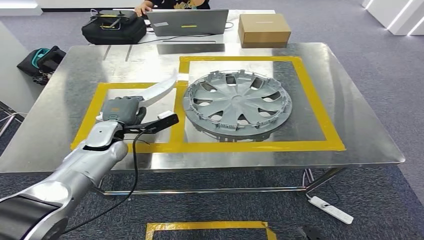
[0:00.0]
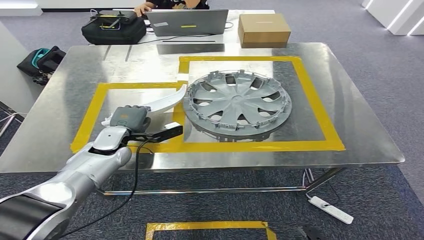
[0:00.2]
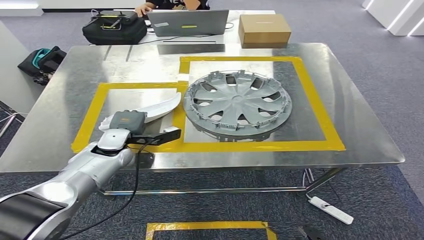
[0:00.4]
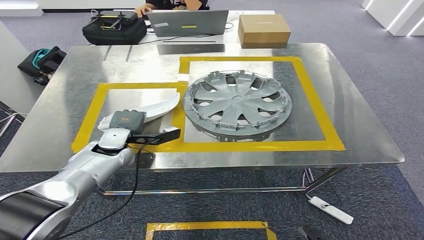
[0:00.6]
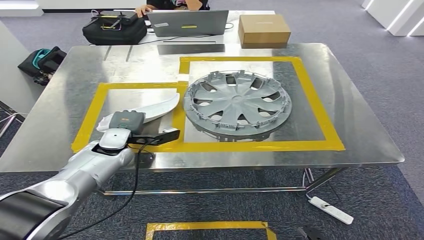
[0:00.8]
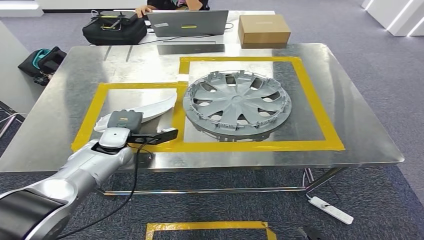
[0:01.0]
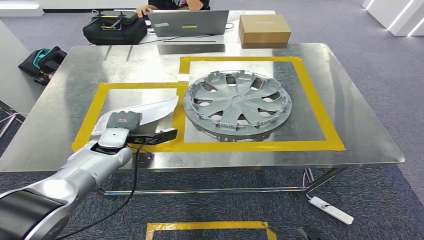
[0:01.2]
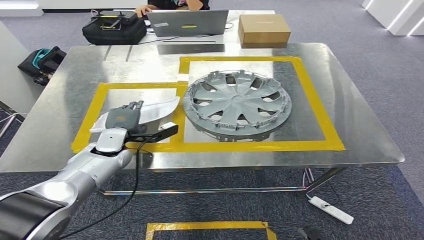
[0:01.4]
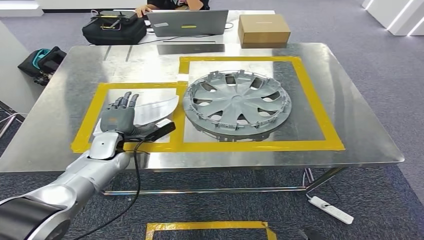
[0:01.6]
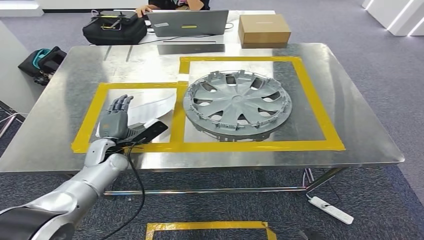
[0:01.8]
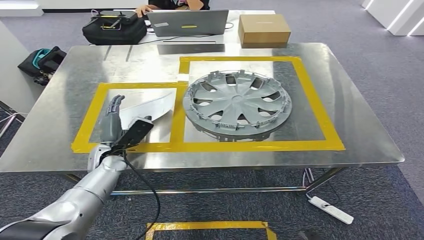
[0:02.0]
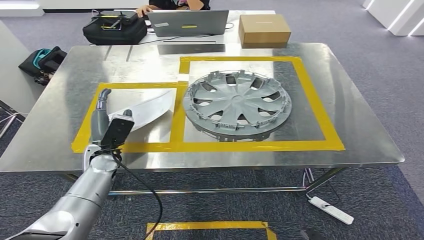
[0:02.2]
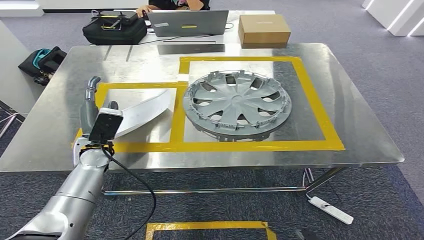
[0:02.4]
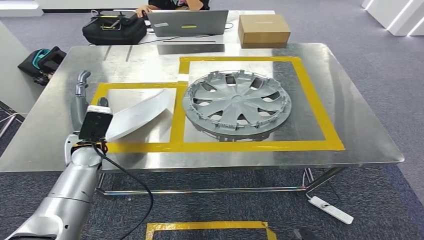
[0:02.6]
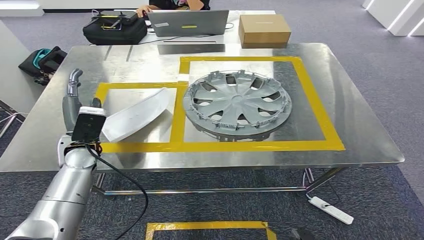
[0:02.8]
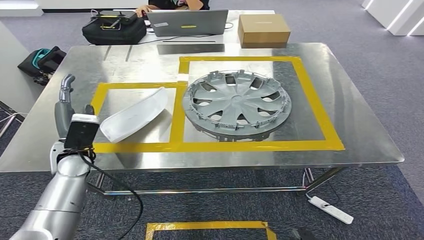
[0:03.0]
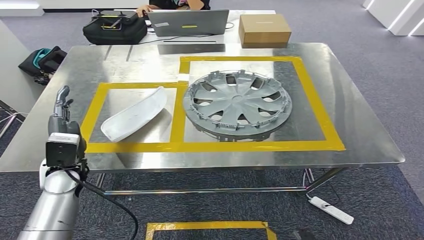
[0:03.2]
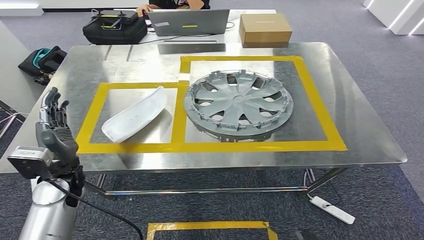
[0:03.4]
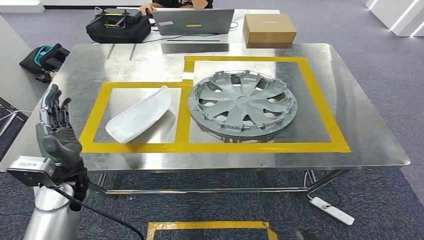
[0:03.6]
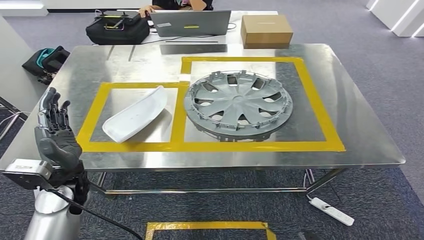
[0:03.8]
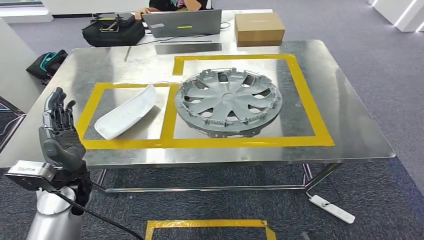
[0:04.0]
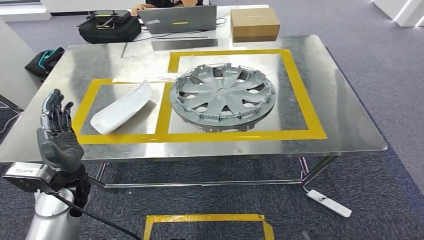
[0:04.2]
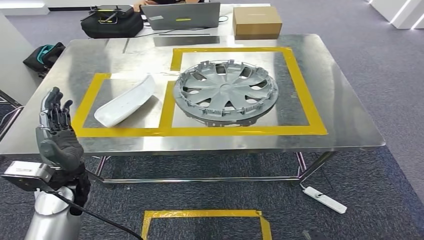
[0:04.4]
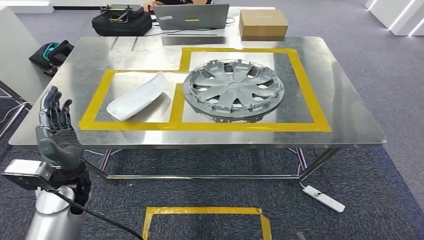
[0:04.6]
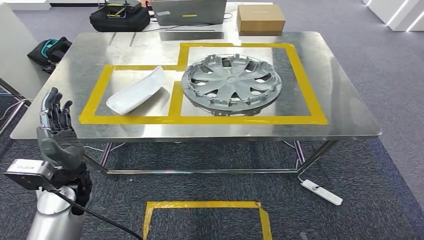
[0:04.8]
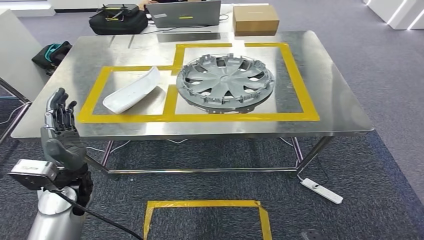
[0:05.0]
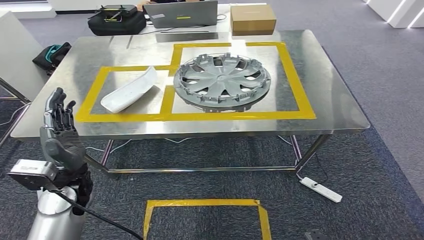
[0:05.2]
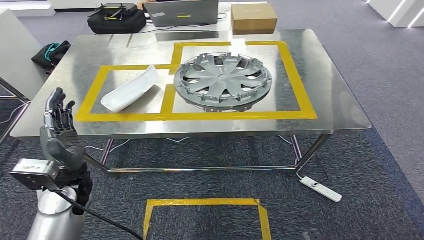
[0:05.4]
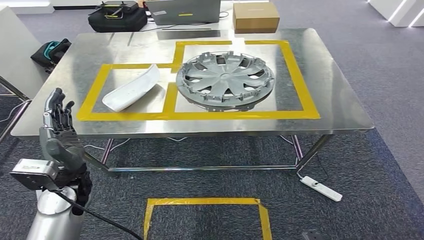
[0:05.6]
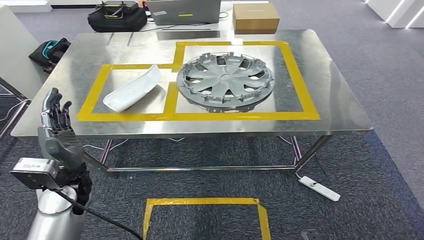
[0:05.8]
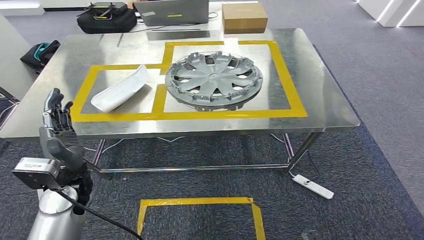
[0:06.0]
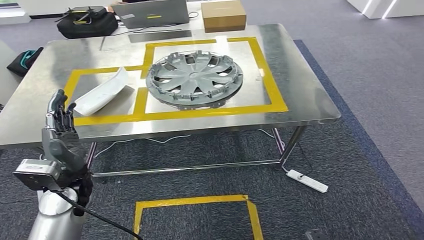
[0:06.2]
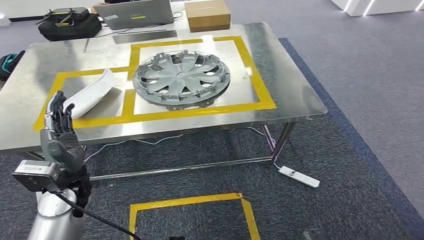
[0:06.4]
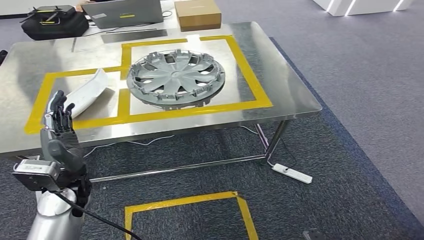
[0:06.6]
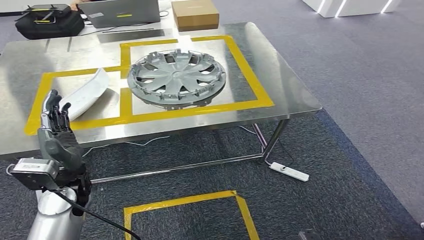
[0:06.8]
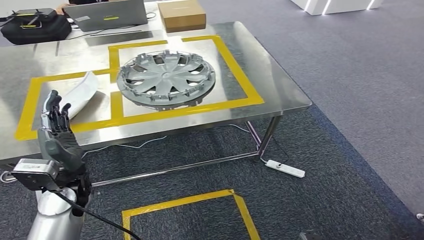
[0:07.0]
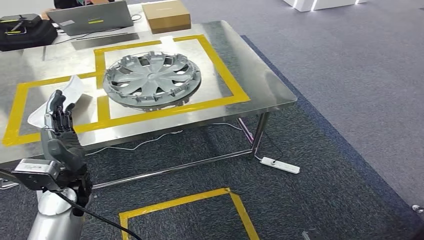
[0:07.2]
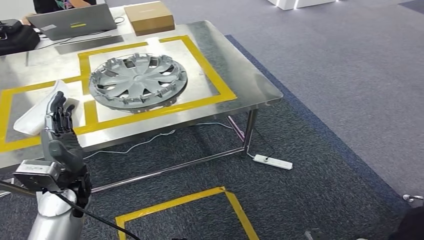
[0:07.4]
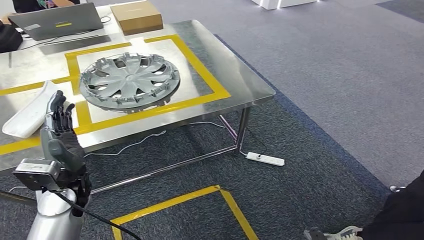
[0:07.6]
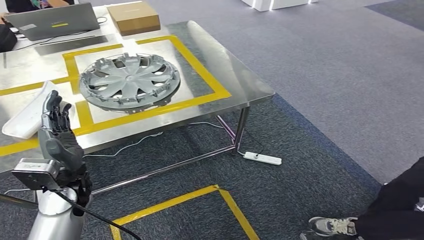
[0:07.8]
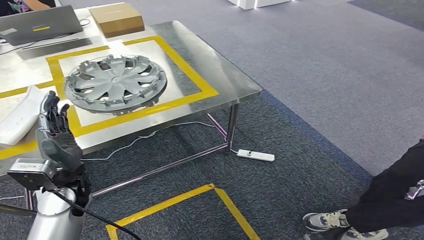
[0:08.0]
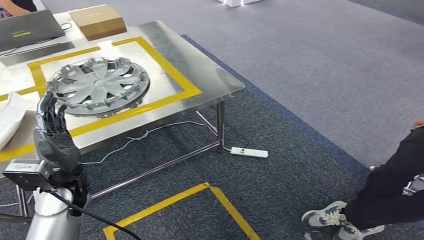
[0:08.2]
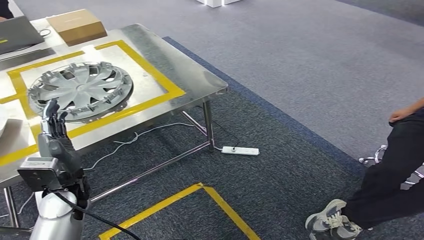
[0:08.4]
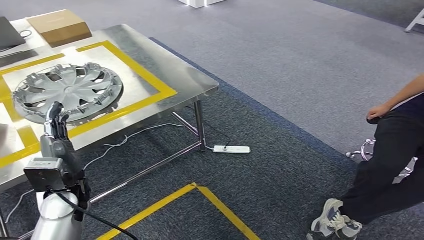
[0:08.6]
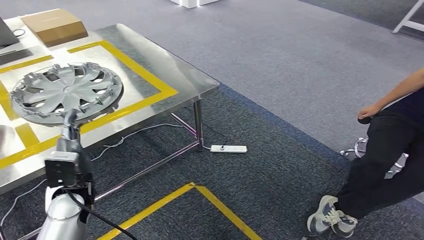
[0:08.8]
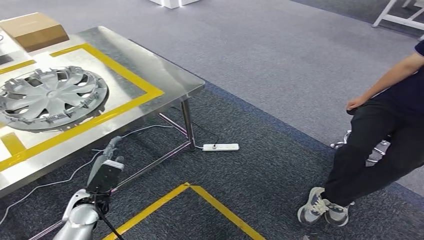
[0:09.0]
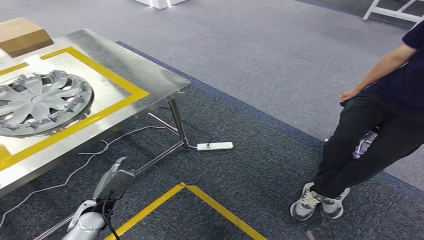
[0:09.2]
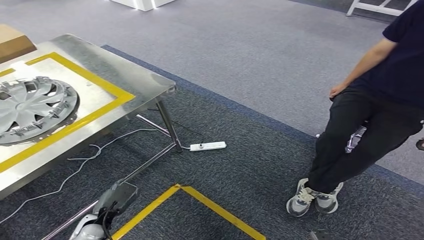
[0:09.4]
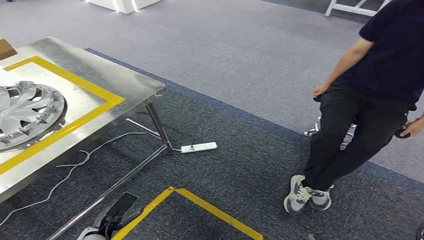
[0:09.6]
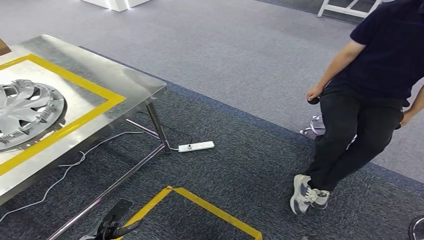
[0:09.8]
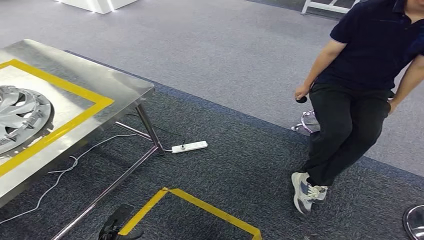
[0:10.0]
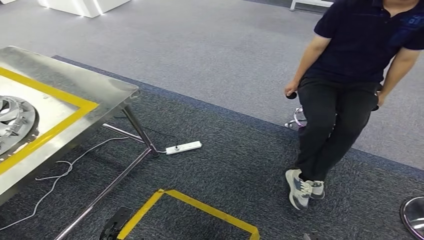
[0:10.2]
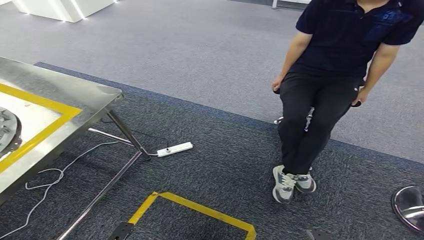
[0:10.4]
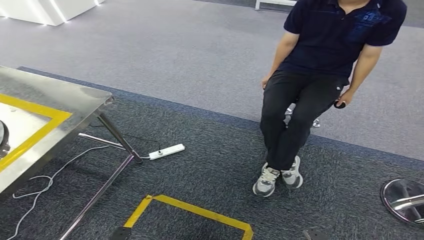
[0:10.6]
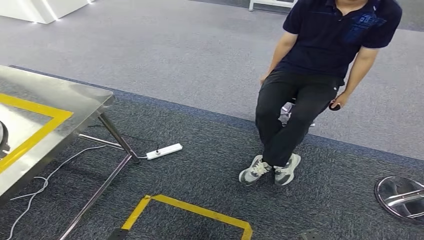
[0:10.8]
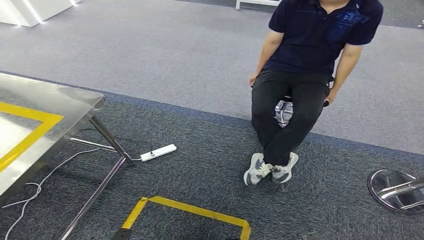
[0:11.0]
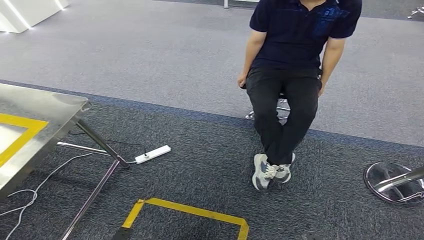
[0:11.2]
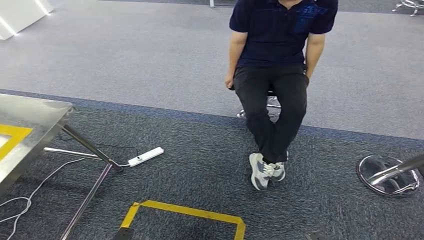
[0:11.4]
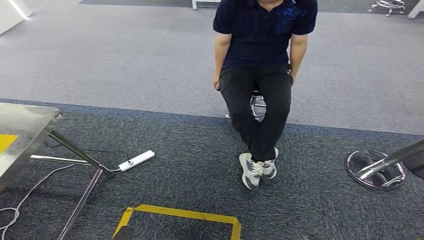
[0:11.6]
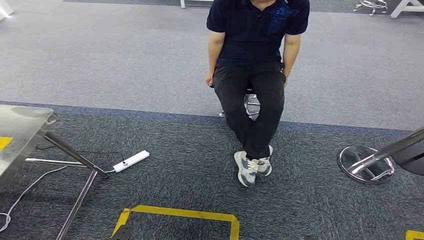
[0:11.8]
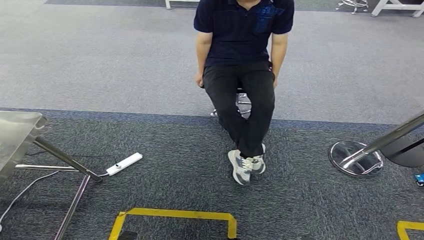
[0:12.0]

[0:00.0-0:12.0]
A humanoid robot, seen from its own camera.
Step, 0:00.0 to 0:04.0: Insert the small parts into the corresponding slots on the workbench.
0:01.6 to 0:03.0: The left hand heads upward, covering some 5 cm.

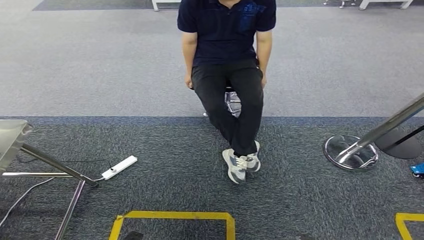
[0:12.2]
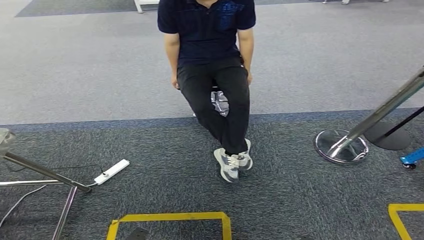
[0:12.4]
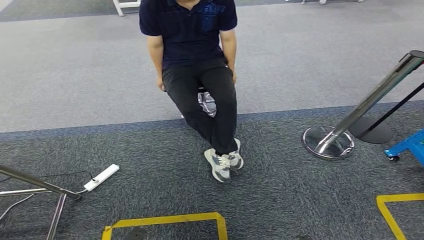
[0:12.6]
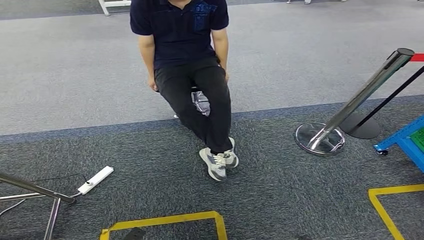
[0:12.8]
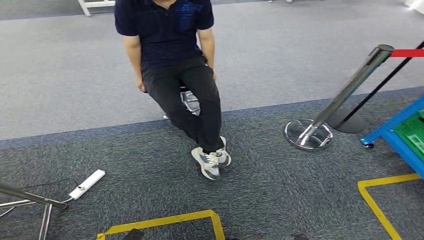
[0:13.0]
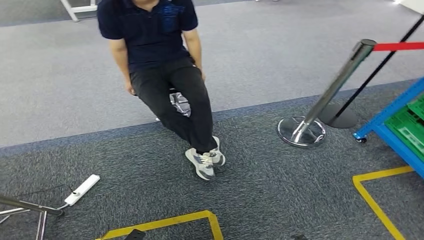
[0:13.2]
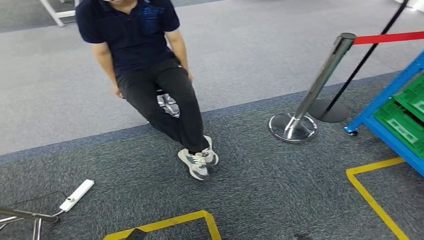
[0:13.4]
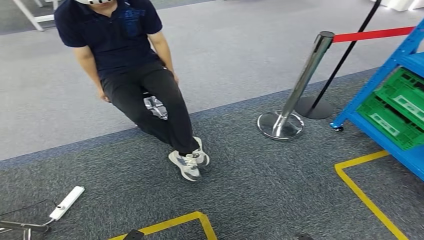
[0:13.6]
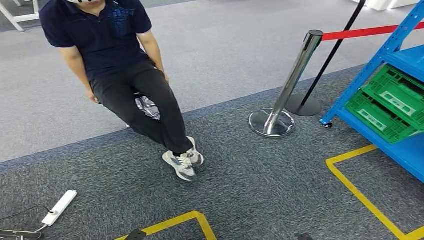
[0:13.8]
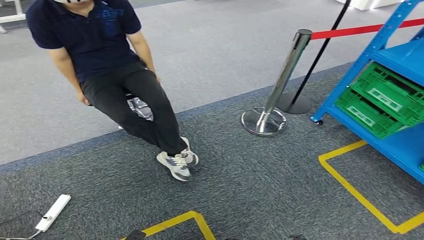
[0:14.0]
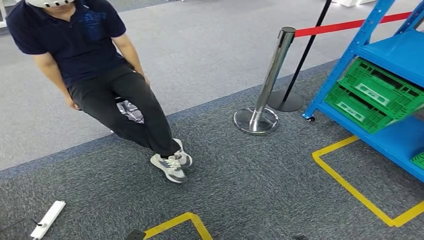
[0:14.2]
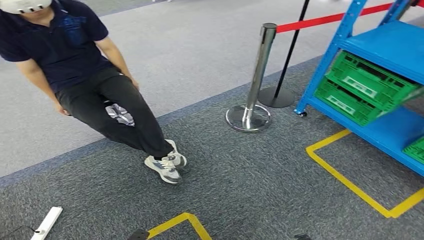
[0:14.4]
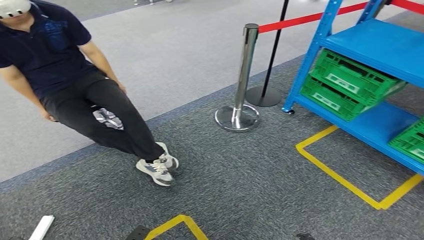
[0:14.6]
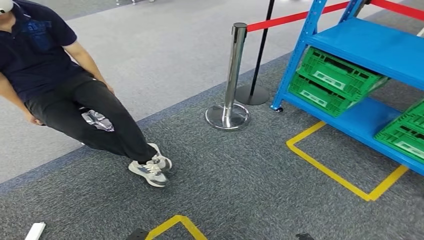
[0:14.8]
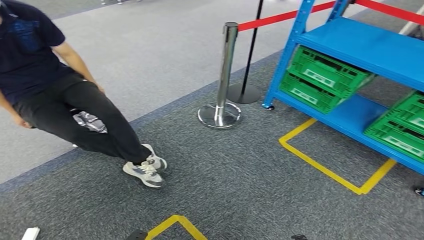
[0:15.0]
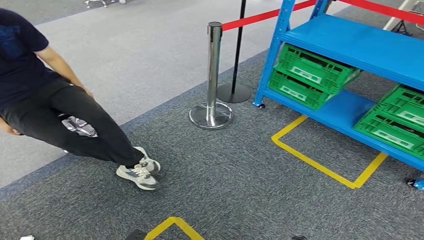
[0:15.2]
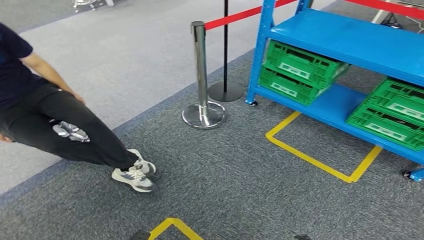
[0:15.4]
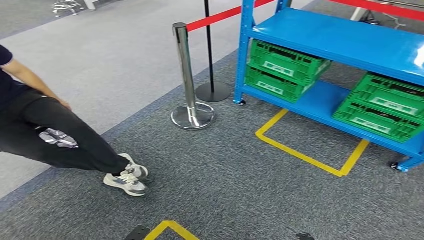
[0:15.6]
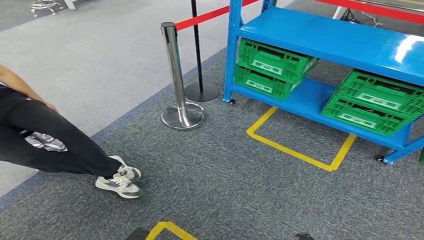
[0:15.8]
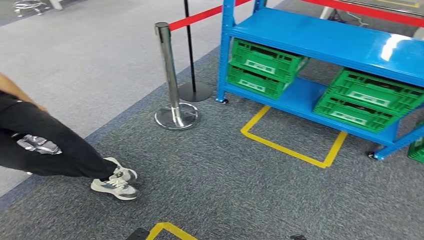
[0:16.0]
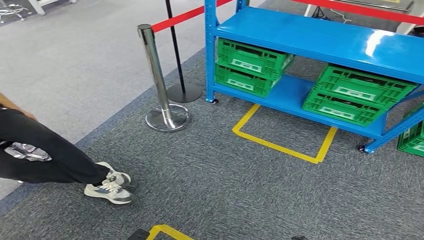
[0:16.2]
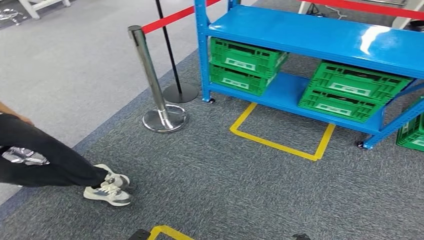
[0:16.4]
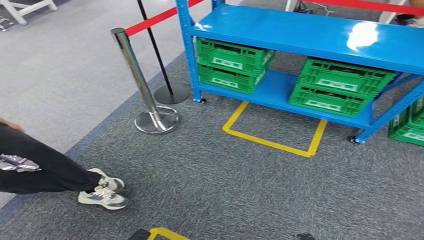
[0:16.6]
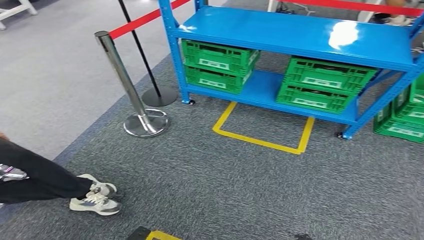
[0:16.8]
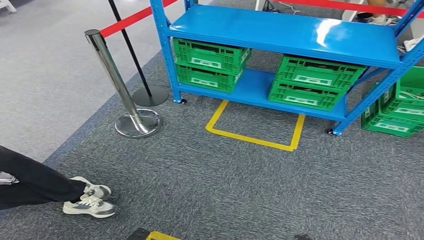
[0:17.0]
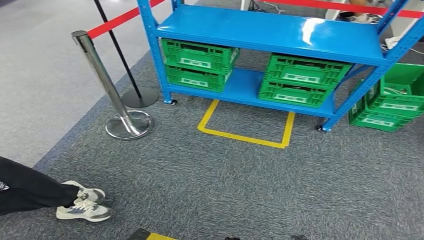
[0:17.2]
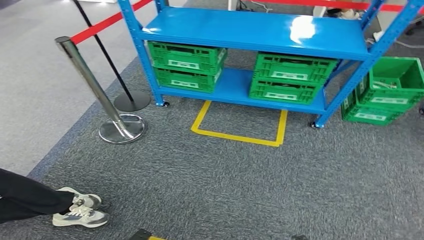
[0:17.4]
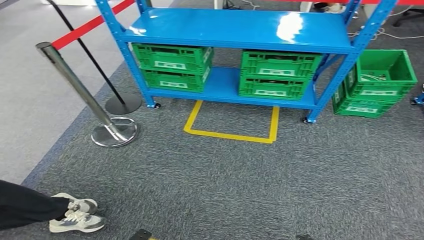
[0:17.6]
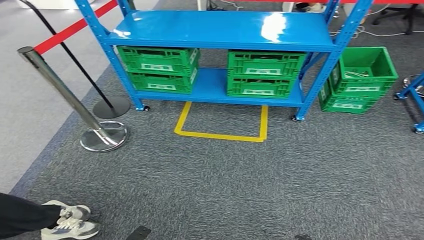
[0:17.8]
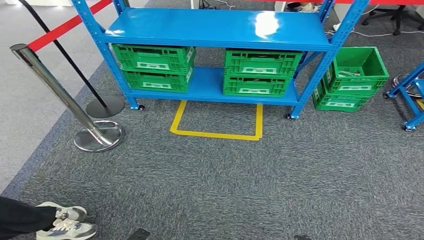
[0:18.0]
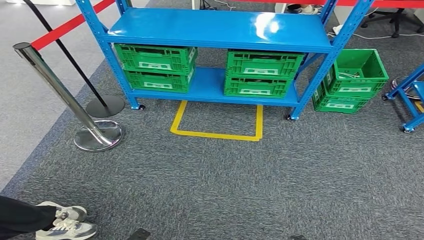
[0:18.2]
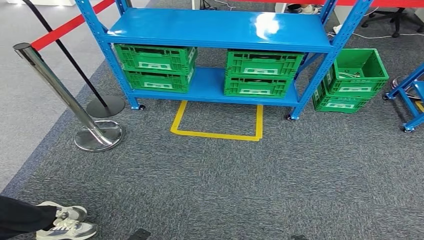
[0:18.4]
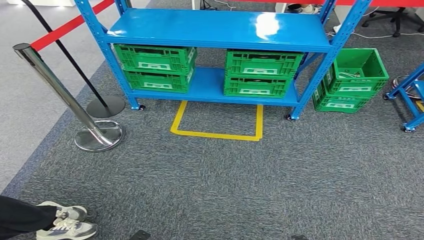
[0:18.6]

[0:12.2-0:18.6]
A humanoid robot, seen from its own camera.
Step, 0:12.2 to 0:18.6: Return to the initial position at the workbench.
